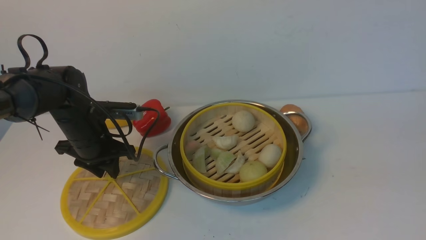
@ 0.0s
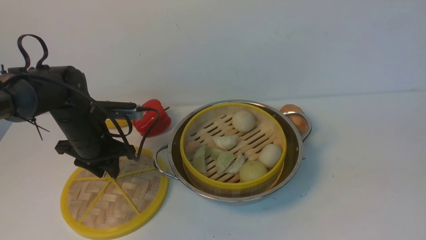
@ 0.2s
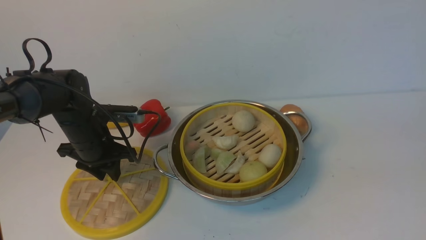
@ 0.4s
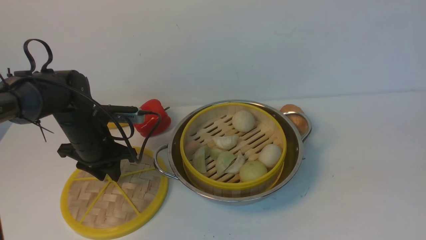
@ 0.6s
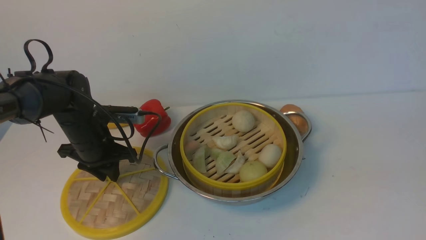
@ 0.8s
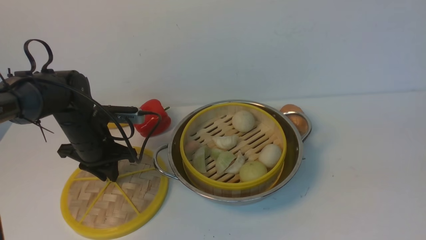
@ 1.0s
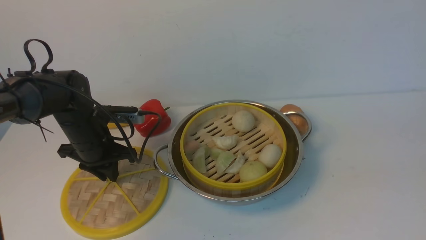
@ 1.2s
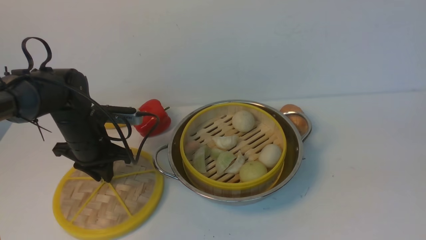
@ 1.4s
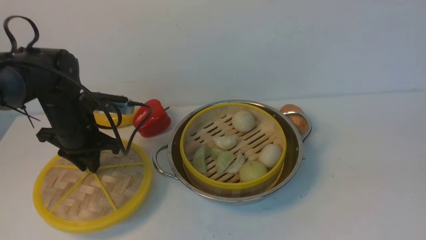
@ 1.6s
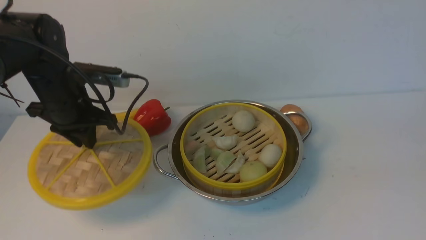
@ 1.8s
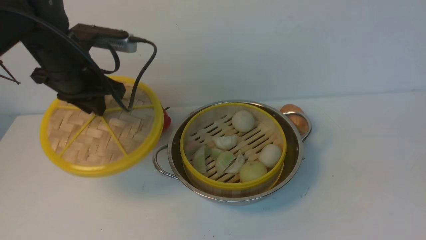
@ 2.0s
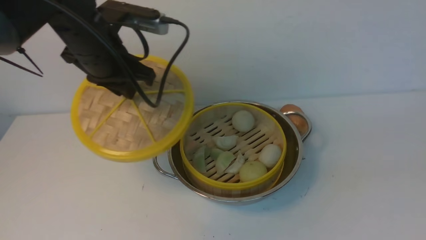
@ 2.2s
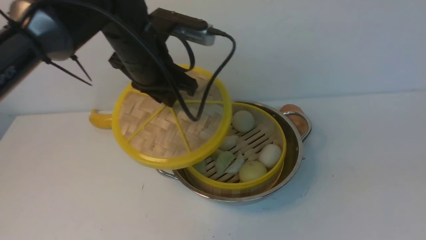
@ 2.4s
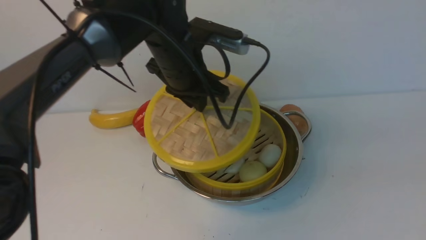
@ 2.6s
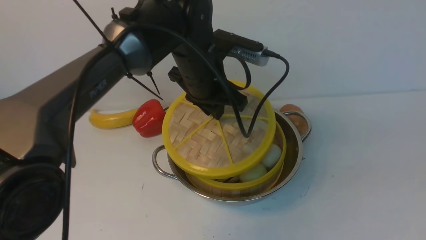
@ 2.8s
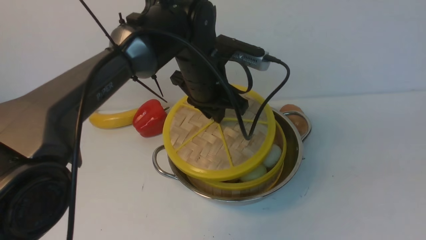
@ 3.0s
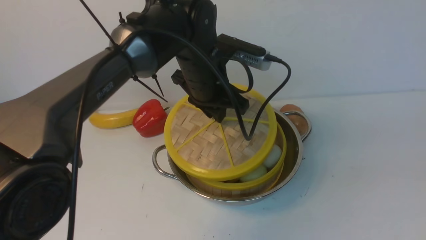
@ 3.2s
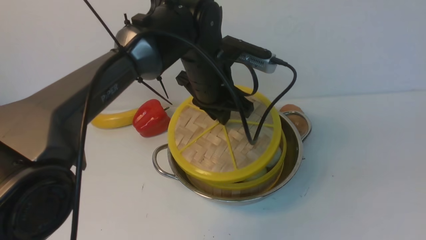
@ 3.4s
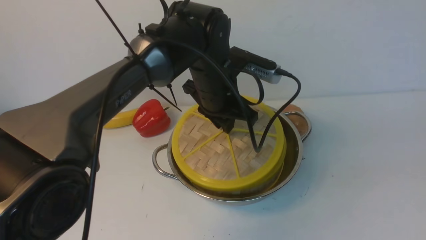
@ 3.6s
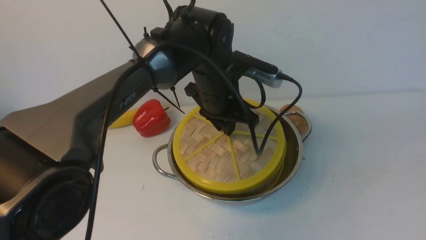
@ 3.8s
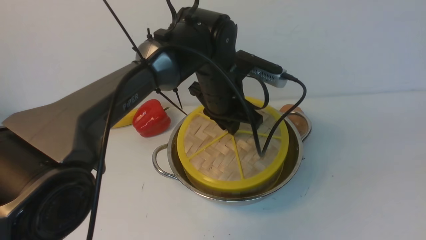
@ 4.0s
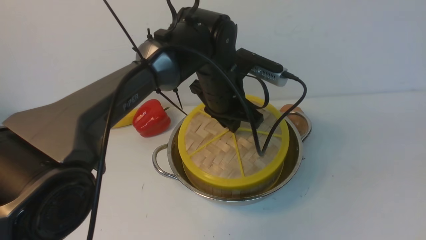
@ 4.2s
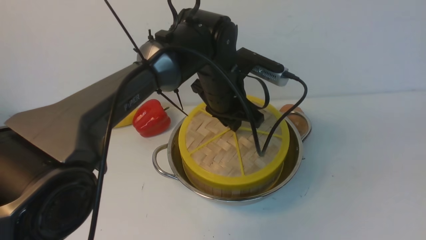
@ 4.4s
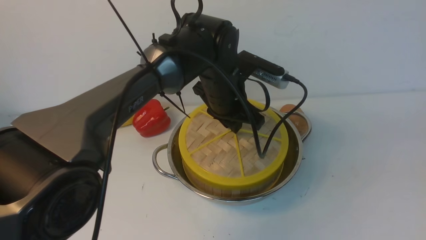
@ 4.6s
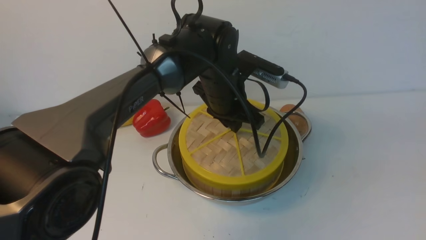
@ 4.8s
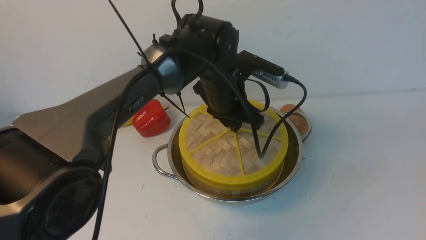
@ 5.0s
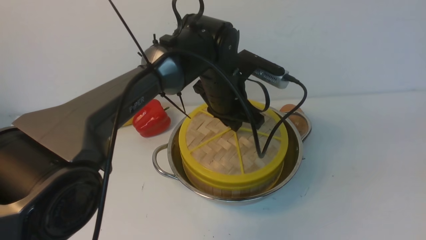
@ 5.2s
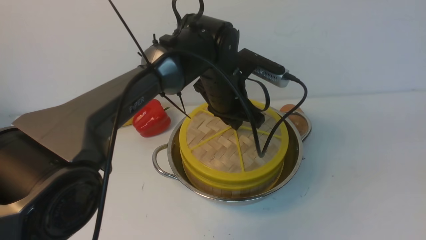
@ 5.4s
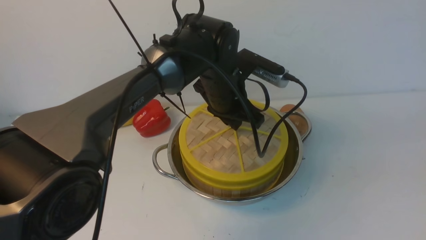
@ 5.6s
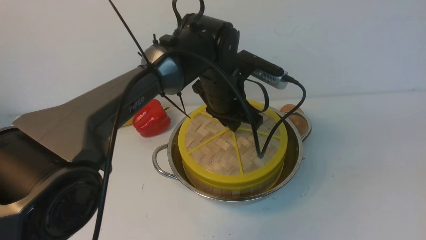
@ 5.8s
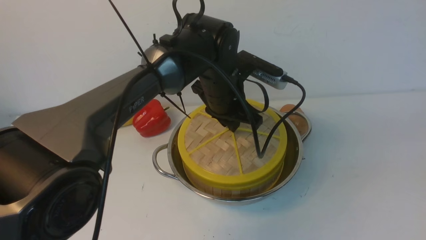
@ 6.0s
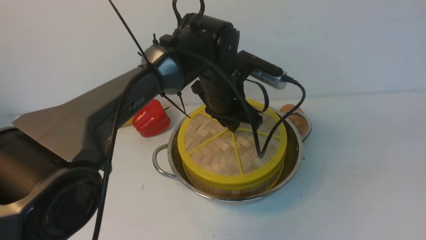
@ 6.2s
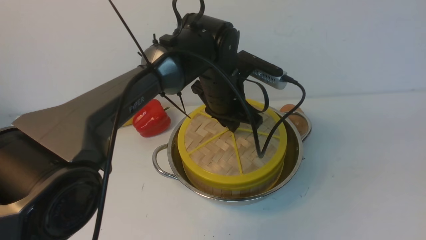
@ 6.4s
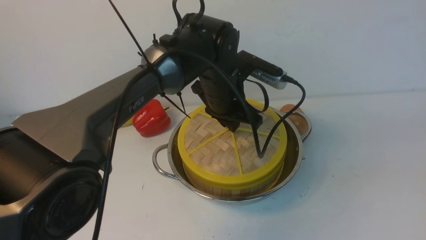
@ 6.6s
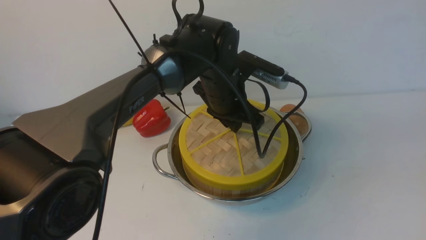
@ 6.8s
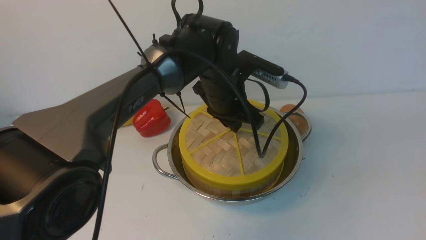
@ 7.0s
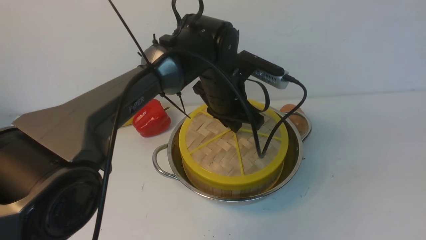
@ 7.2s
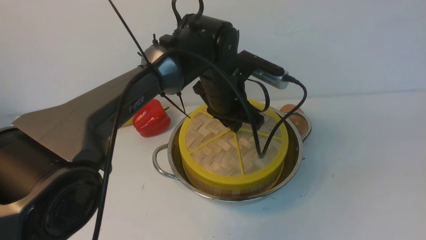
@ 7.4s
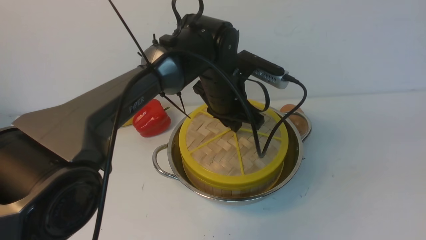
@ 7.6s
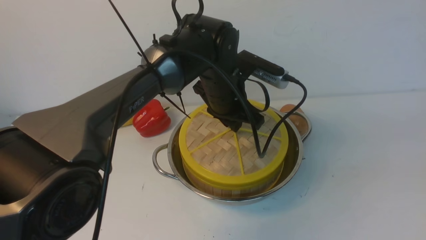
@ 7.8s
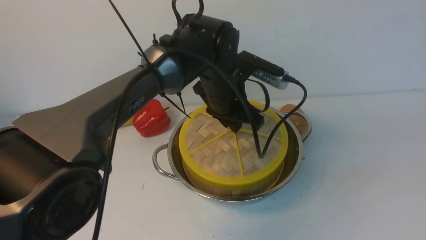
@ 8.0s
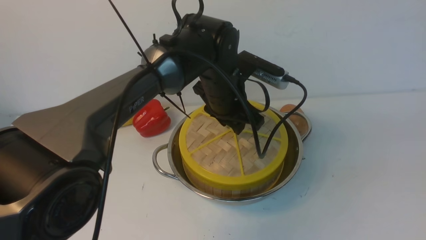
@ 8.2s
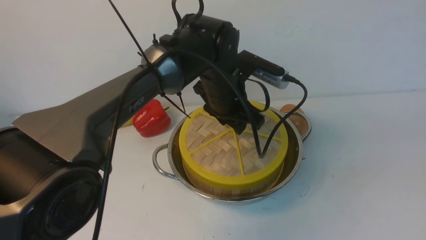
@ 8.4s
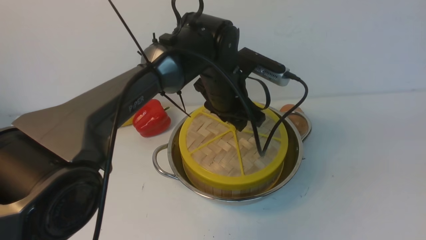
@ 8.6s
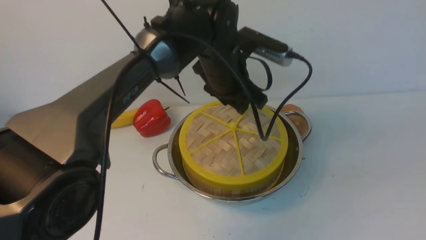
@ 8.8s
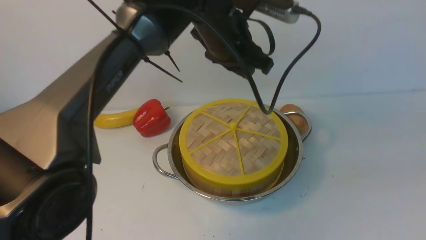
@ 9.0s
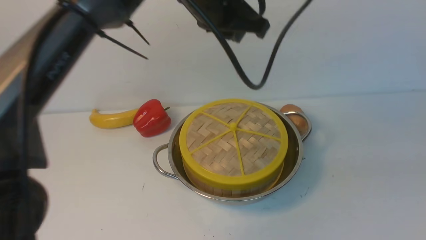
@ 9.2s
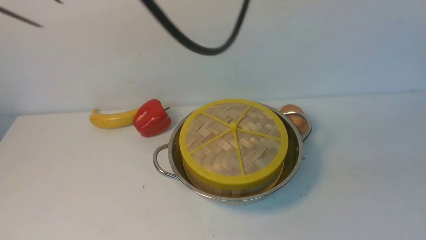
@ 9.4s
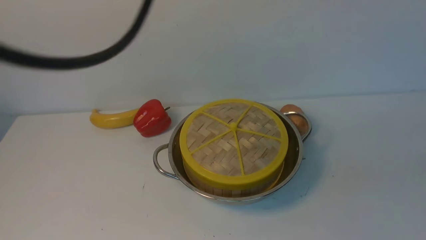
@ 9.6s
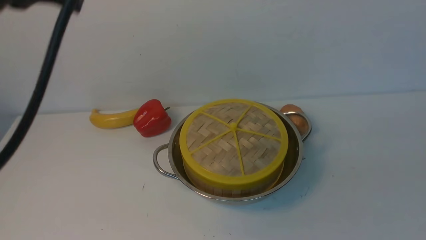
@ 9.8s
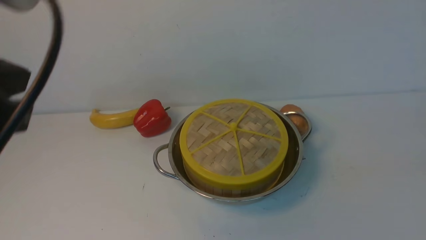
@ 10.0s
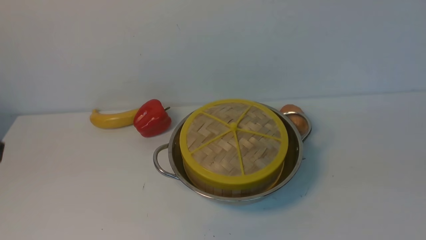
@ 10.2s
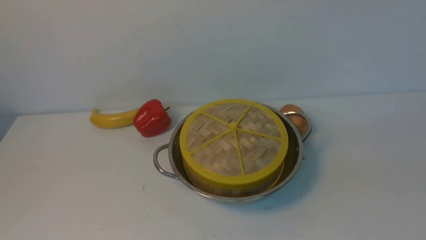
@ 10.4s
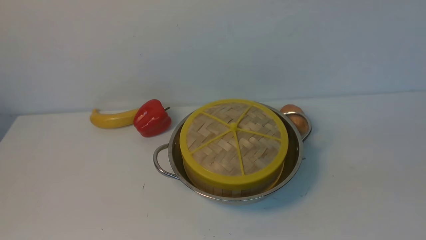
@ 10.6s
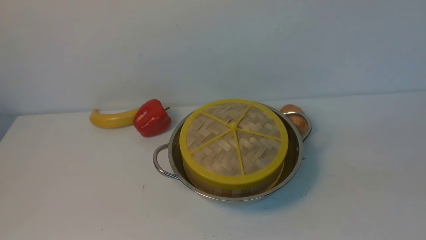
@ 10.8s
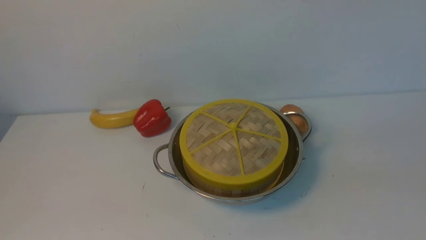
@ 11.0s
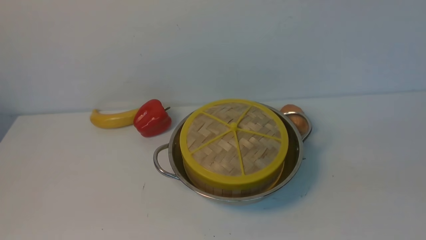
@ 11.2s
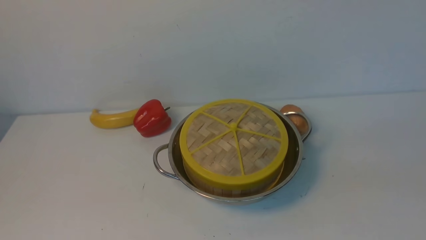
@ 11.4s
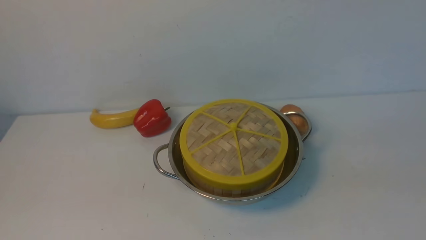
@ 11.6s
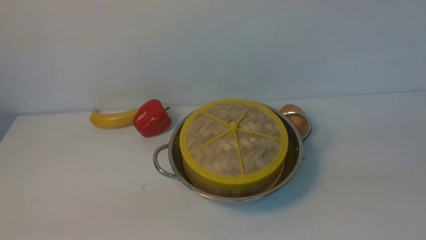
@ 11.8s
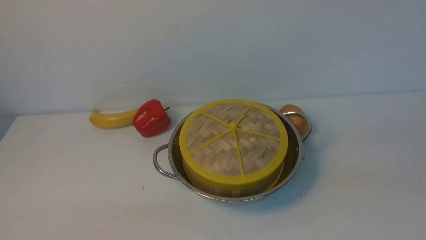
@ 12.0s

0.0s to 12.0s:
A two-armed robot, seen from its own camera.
Task of the whole recording: place the steamer in the pot on the white table, and put the lid on the steamer.
Step, 2.0s to 9.0s: use the left arm to place the steamer lid on the steamer.
0.0s to 1.6s: The left gripper closes its fingers.
1.6s to 3.0s: The left gripper heads to the right, covering some 20 cm.
4.4s to 7.6s: Both grippers stay about where they are.
7.6s to 9.0s: The left gripper shifts approximately 10 cm upward, and opens.
9.0s to 10.4s: The left gripper travels backward and to the left by some 40 cm, and closes.

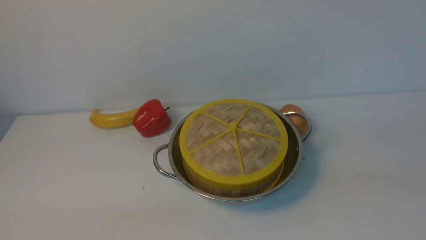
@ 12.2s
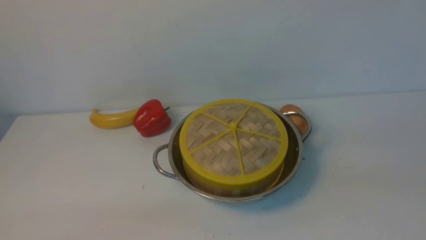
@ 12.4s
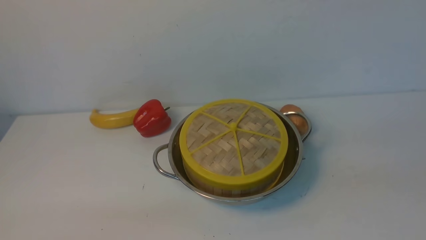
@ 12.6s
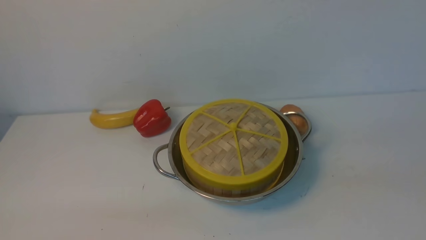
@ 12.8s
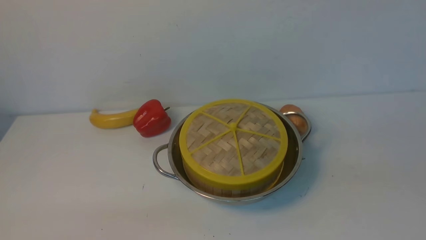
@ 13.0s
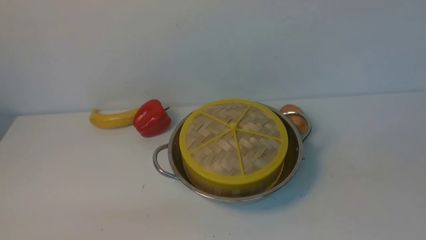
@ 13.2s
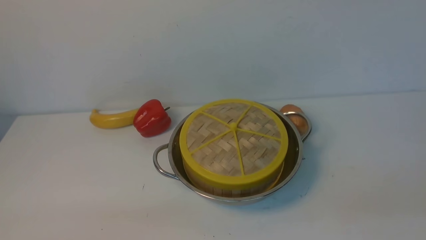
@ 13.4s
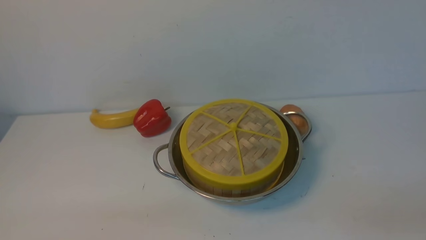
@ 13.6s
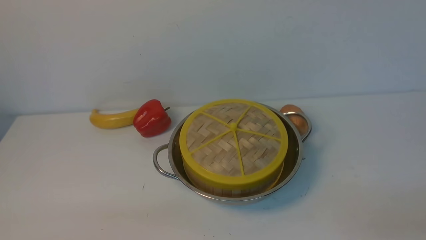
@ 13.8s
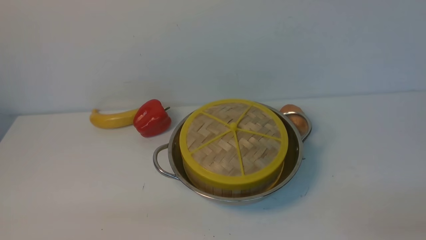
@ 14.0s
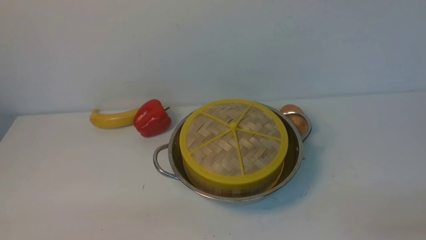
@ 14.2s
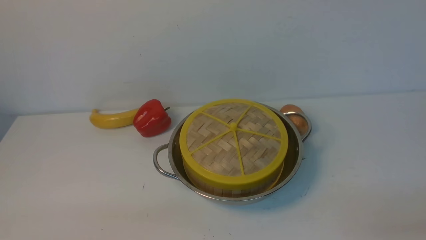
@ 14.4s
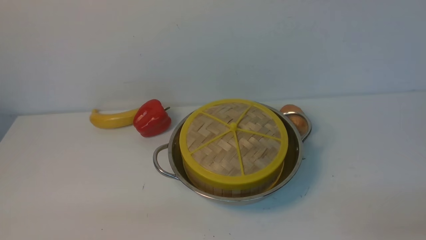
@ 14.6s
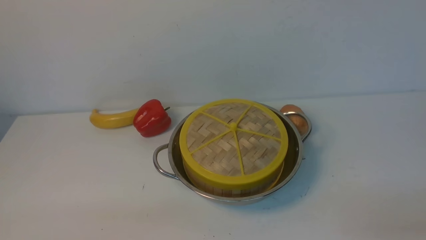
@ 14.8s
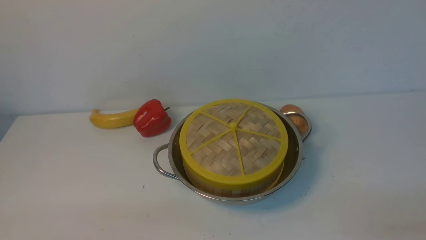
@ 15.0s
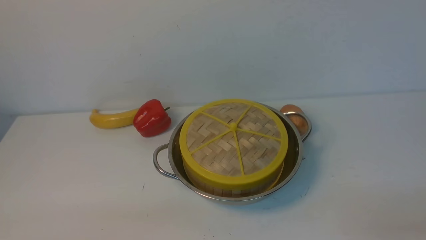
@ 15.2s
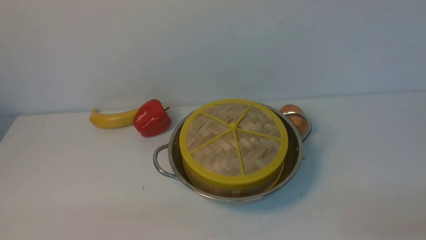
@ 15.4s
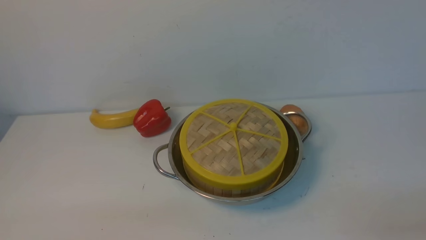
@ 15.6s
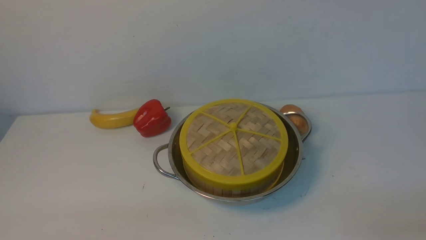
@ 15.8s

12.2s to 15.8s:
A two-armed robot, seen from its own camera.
Task of the whole recording: place the steamer in the pot on the white table, and put the lid on the steamer.
14.0s to 15.8s: The two grippers keep their place.
